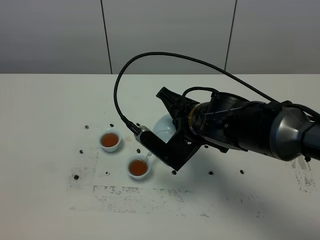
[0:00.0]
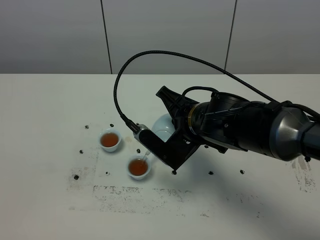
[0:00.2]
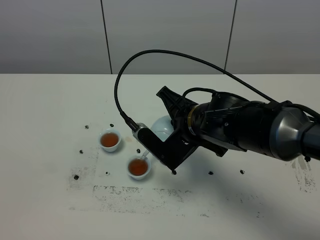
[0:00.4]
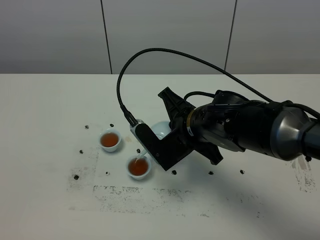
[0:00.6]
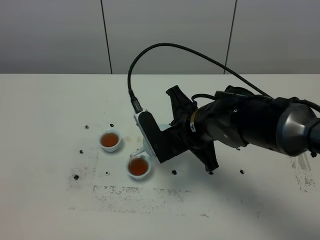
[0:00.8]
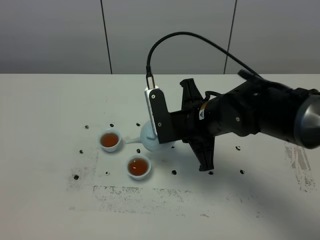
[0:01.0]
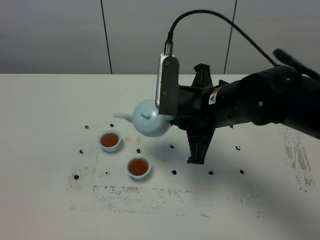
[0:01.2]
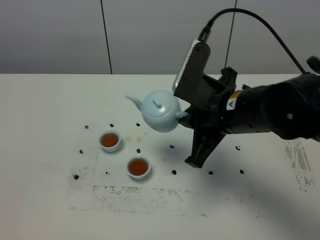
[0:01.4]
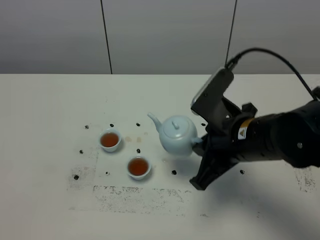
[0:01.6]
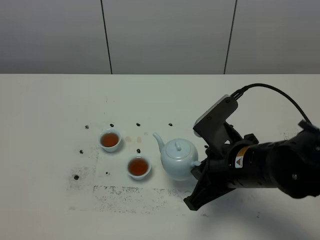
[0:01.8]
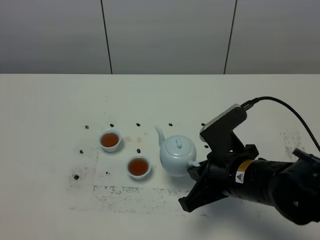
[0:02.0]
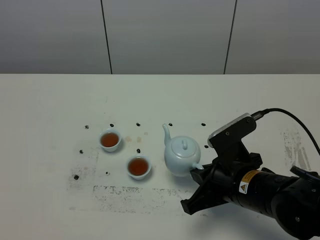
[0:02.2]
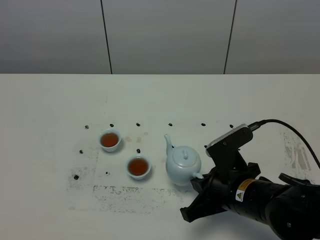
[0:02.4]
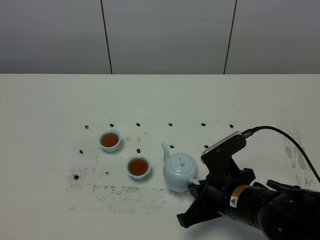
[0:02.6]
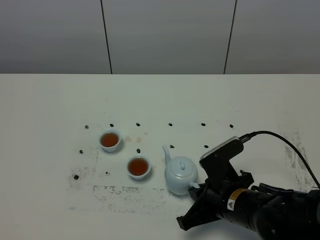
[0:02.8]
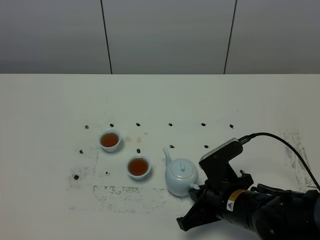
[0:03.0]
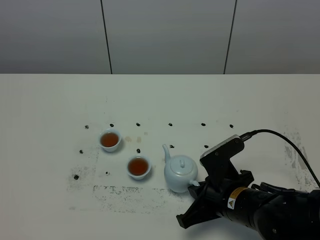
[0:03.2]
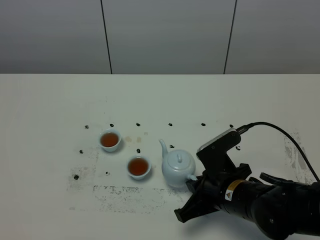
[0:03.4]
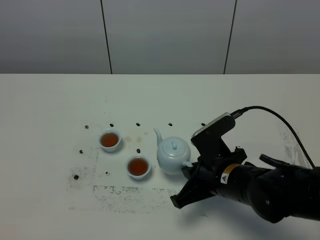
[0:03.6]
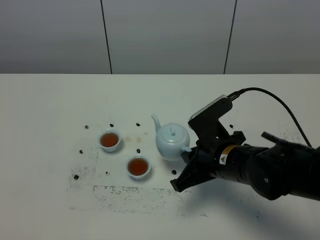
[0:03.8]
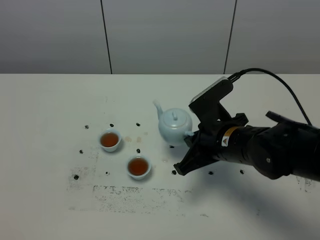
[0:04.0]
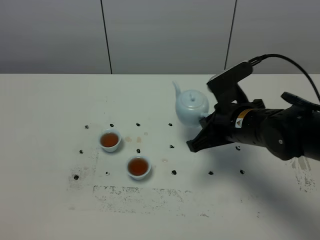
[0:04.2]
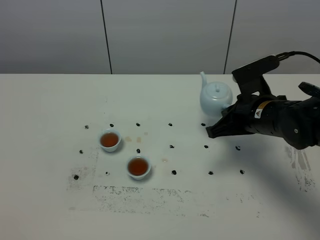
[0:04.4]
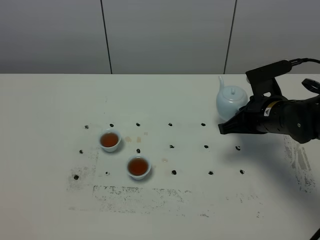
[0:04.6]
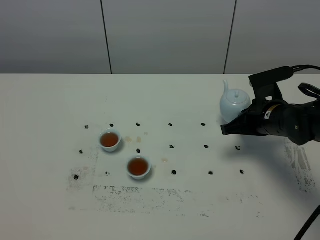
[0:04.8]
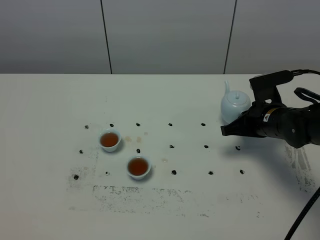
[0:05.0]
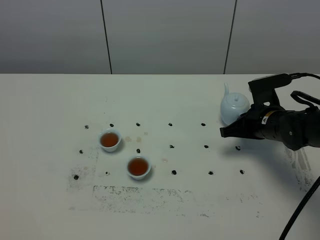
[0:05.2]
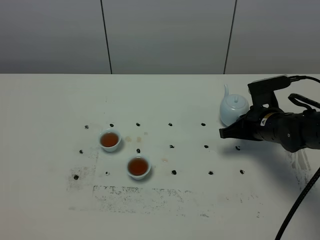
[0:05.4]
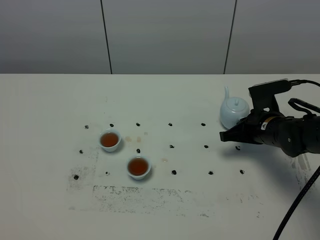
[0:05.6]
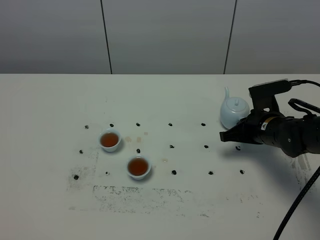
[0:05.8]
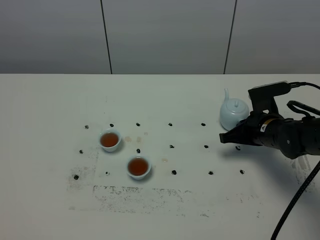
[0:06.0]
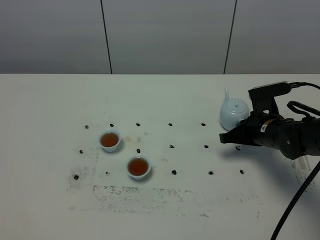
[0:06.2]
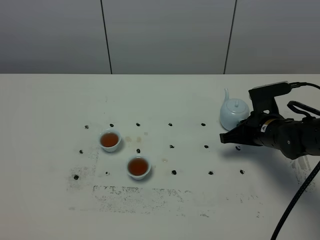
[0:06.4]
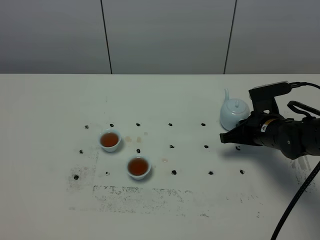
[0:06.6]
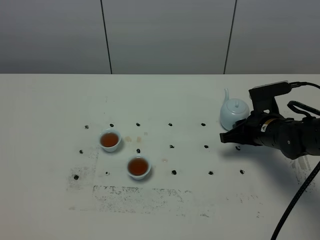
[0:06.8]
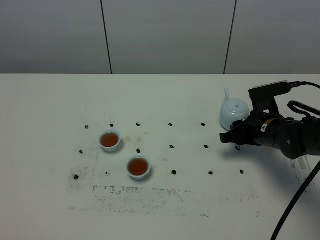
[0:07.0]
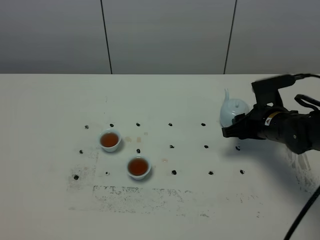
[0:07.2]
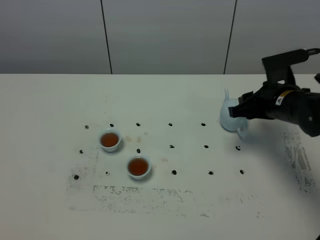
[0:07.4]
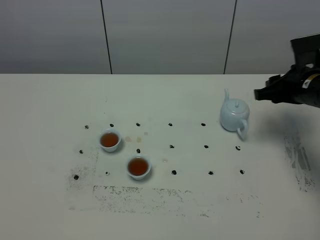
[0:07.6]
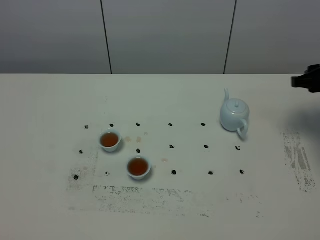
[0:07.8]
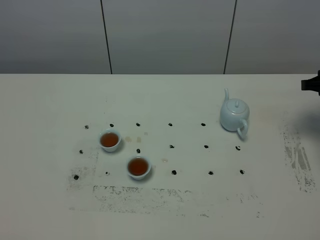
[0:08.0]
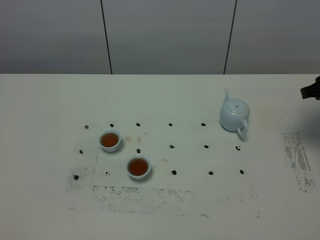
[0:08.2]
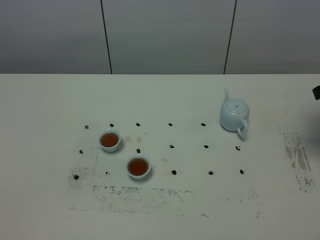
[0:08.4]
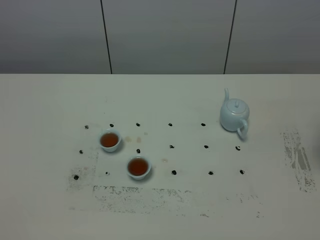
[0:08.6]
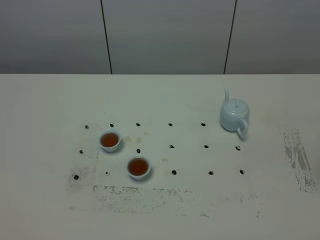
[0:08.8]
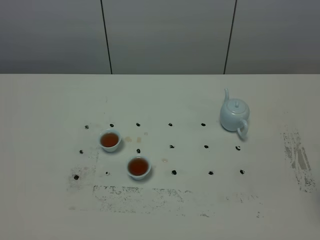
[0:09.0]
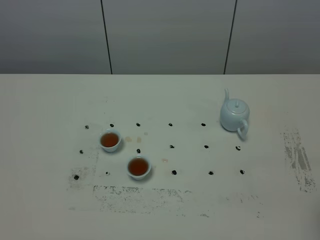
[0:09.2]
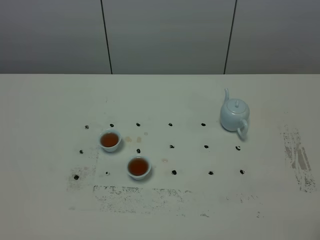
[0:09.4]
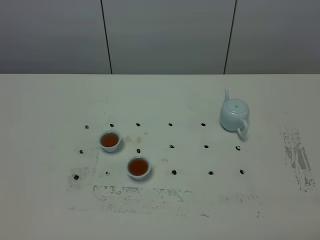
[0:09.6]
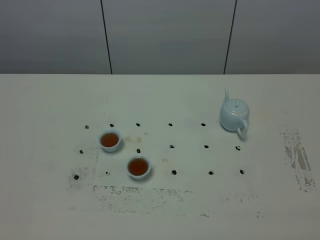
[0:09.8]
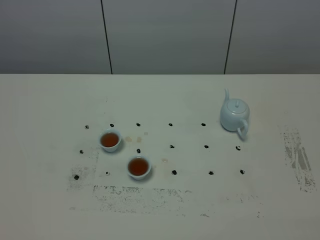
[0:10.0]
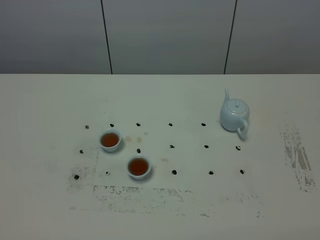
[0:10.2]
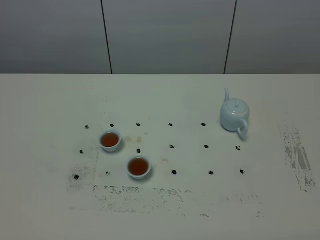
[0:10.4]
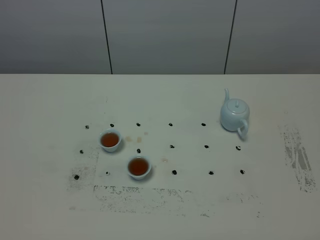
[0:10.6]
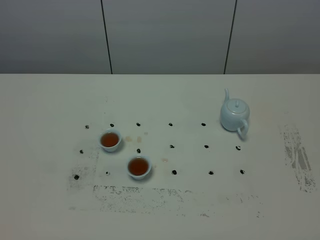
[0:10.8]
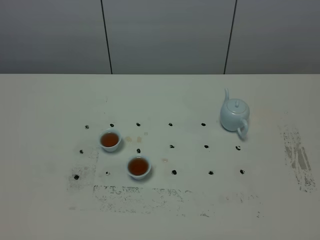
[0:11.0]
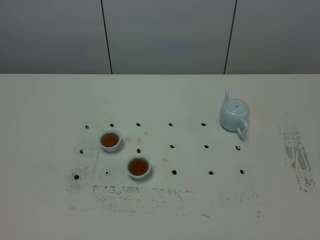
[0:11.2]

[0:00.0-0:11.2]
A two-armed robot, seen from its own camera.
Task of the whole recording: grasp the blue porcelain teapot and pour the tea into the two blue porcelain teacups one by one, put the blue porcelain teapot back in its original place.
0:00.0 to 0:01.6: The right gripper moves to the right and backward, approximately 10 cm.
0:01.6 to 0:03.2: The right gripper goes about 10 cm downward.
0:03.2 to 0:04.8: The right gripper moves forward and to the right, approximately 20 cm.
0:04.8 to 0:06.4: The grippers make only small movements.
0:06.4 to 0:08.0: The right gripper travels to the right and upward by roughly 15 cm, and opens.
0:08.0 to 0:09.6: The right gripper heads backward, covering approximately 30 cm.

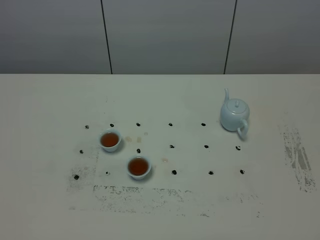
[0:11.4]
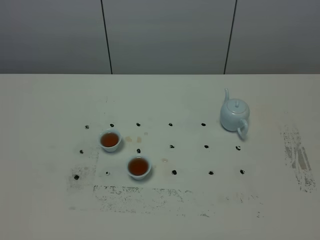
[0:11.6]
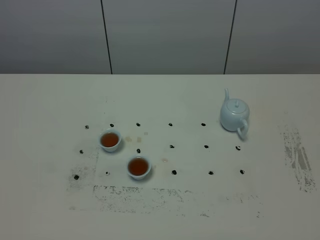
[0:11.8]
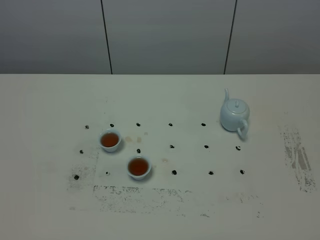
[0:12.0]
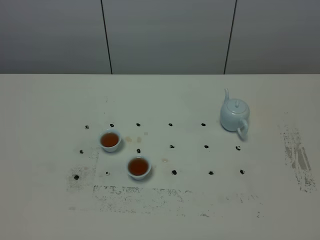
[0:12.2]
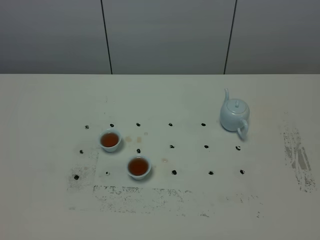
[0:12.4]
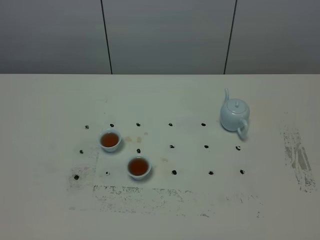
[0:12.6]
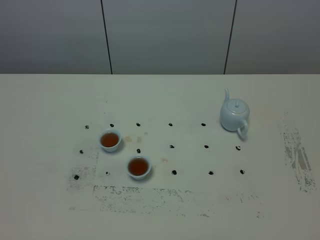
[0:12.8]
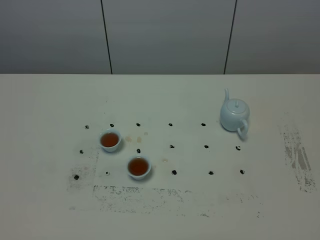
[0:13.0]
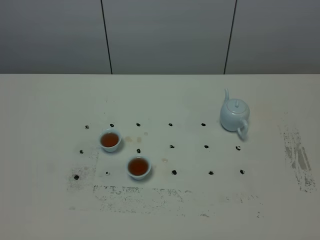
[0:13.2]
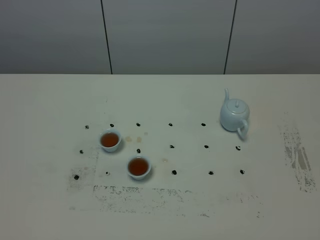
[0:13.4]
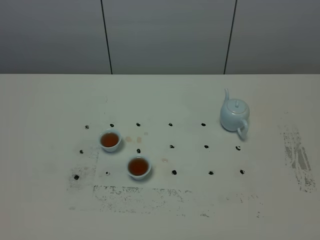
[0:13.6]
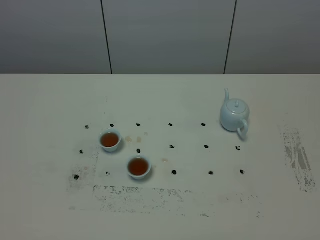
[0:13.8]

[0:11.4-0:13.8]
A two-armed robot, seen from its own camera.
Task of the whole recording: grasp the blue porcelain teapot and pour the tea into the two blue porcelain teacups one by one, put the blue porcelain teapot back in its original place.
0:11.4 to 0:13.8: The two grippers keep their place.

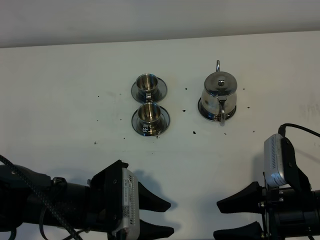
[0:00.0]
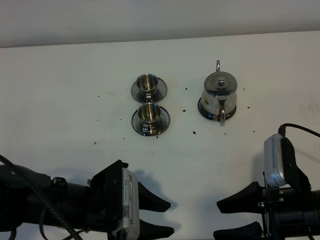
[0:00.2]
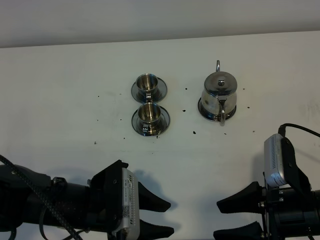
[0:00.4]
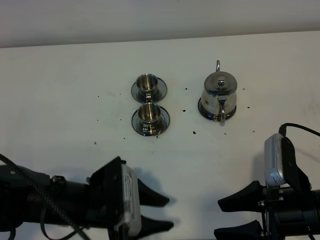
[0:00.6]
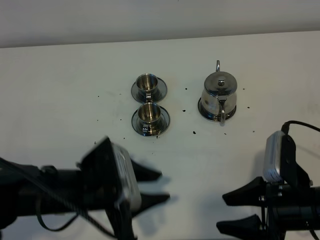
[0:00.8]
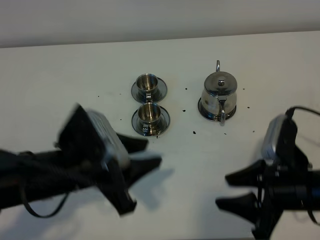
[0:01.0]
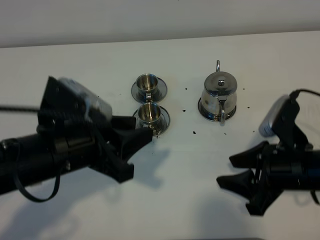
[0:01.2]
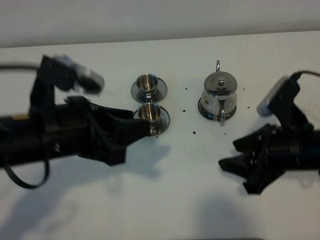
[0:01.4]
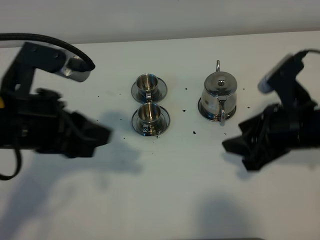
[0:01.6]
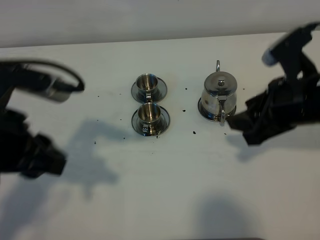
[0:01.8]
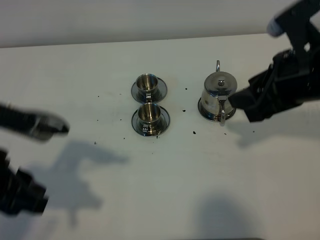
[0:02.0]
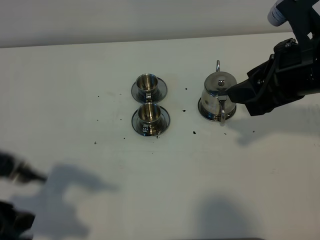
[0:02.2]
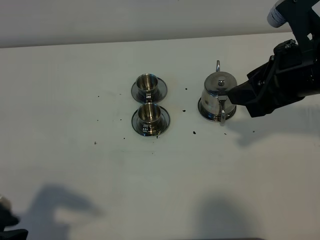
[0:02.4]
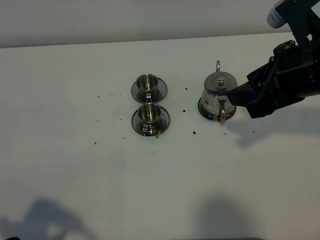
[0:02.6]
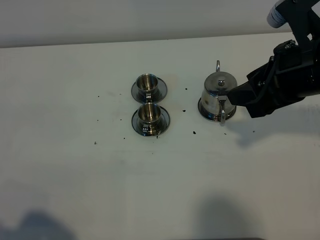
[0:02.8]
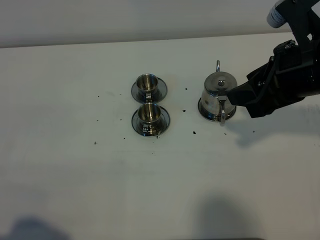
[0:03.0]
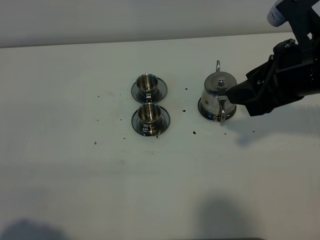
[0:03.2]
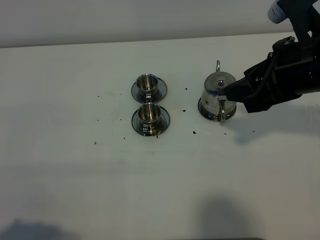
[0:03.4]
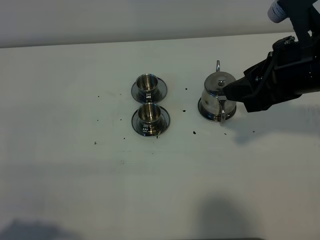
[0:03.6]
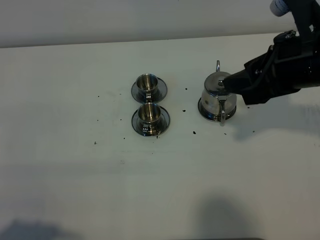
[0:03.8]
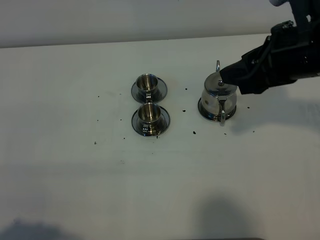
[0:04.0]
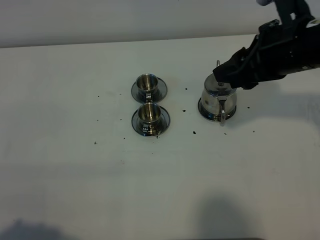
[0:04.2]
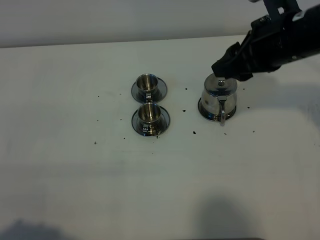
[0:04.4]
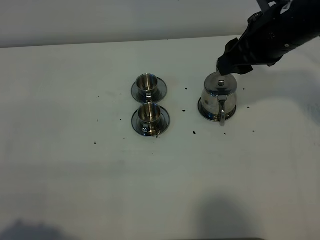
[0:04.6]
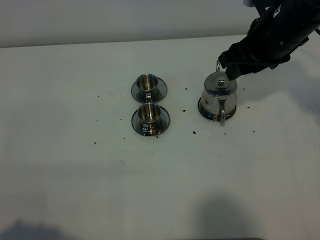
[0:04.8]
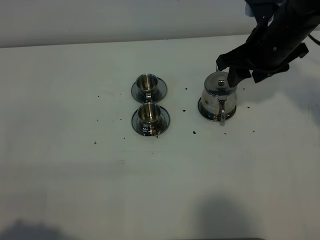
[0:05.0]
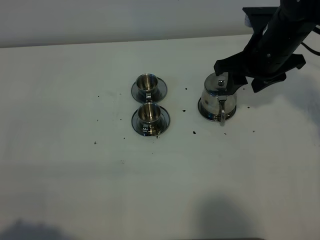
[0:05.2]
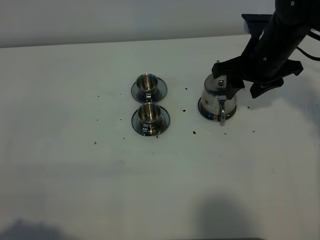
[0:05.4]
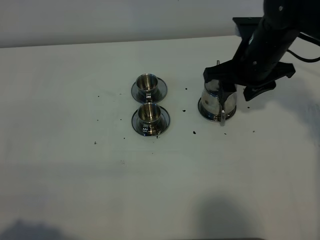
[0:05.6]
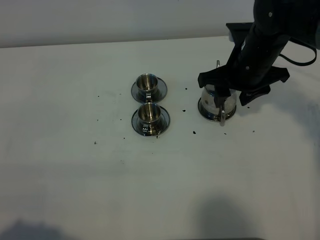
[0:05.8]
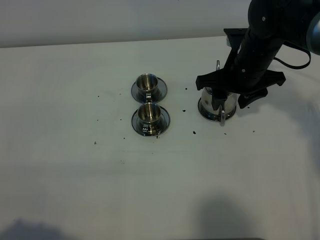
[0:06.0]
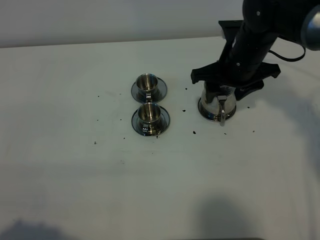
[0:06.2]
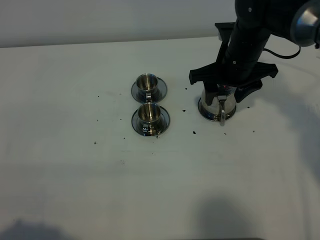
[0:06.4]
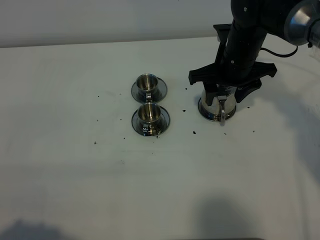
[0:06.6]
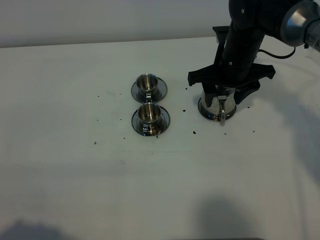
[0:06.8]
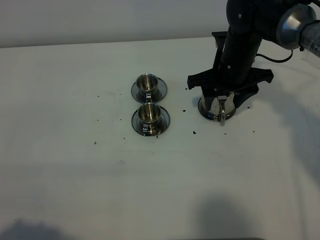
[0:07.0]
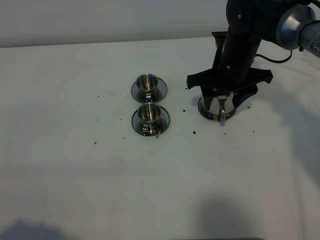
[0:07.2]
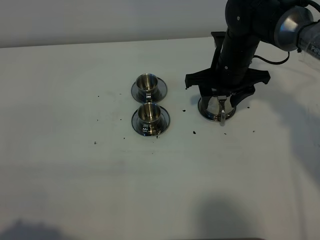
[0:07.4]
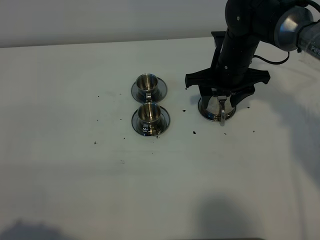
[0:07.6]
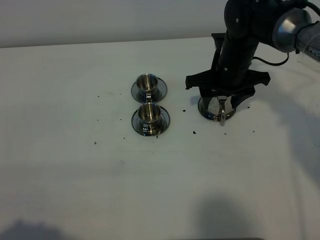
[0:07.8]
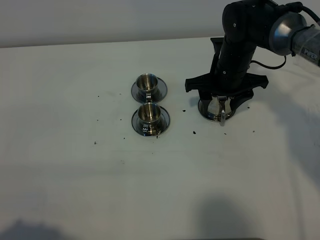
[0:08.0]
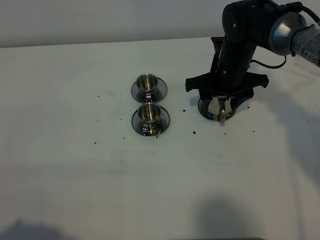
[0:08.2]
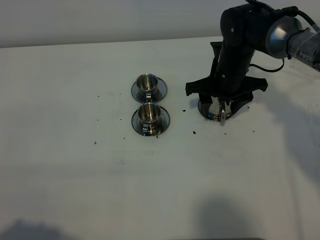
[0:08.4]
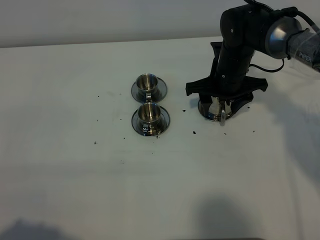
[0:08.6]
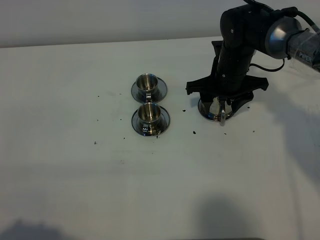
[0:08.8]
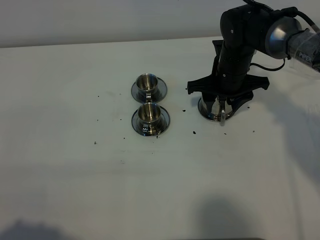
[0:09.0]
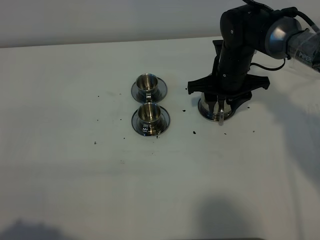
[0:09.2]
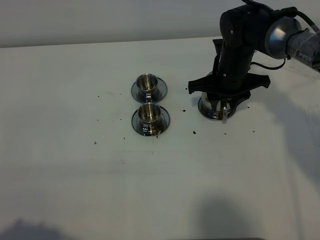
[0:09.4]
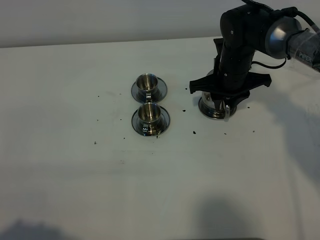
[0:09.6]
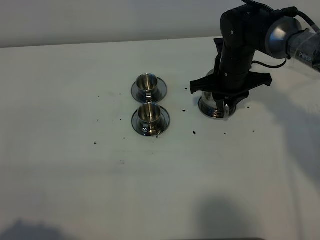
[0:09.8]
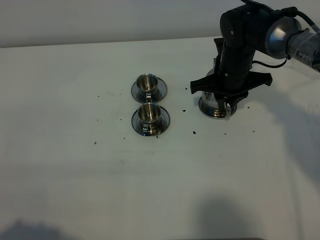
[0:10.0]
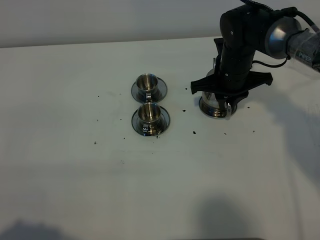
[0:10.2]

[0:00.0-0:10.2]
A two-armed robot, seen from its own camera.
Task of the whole recording: grasp the stainless steel teapot and pour the tea into the two stainless steel teacups one by one, put the stainless steel teapot back in its original place.
0:00.0 to 0:01.4: The left gripper travels upward by some 15 cm. The right gripper is displaced forward by approximately 10 cm.
0:01.4 to 0:03.0: The left gripper heads backward and to the left, covering some 20 cm; the right gripper is displaced upward by roughly 10 cm.
0:03.0 to 0:04.4: The right gripper travels forward by approximately 5 cm.
0:04.4 to 0:05.8: The right gripper goes about 10 cm downward.
0:05.8 to 0:07.2: The right gripper changes place by approximately 5 cm.
0:07.2 to 0:08.8: There are only small adjustments of the grippers.
0:08.8 to 0:10.2: The right gripper closes its fingers.
